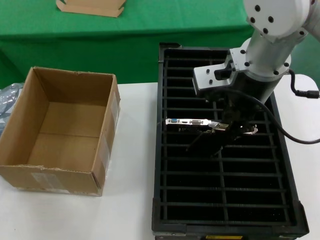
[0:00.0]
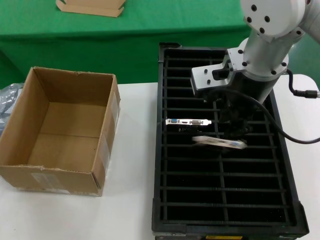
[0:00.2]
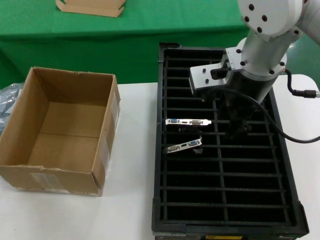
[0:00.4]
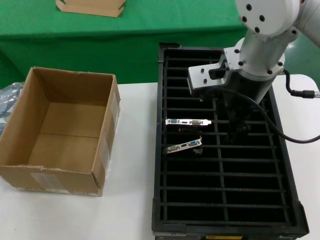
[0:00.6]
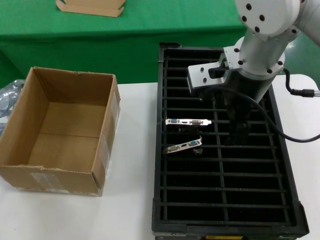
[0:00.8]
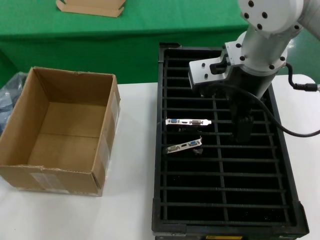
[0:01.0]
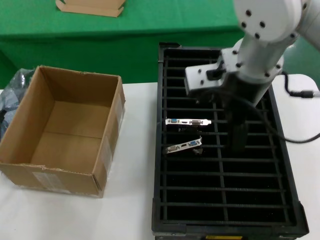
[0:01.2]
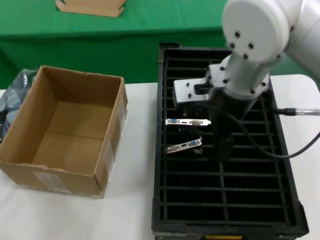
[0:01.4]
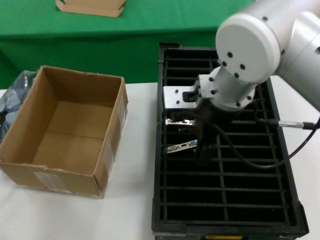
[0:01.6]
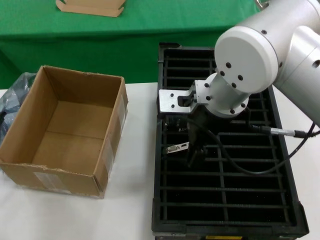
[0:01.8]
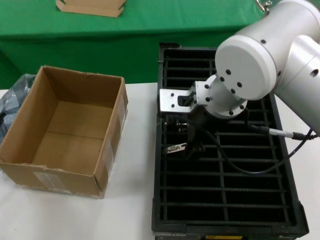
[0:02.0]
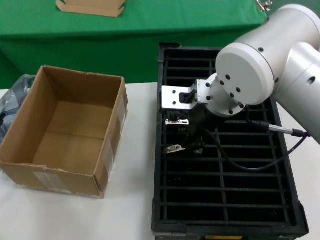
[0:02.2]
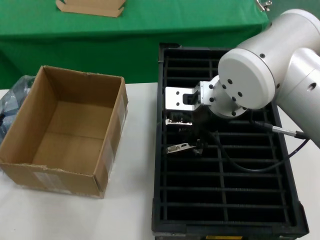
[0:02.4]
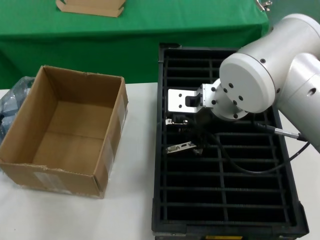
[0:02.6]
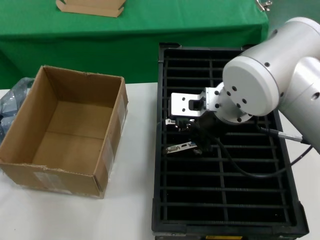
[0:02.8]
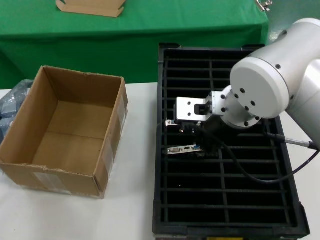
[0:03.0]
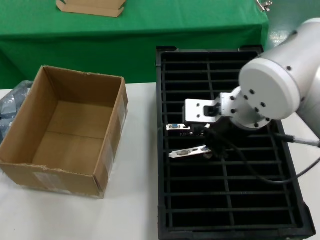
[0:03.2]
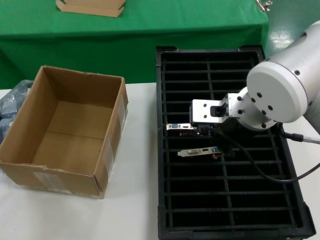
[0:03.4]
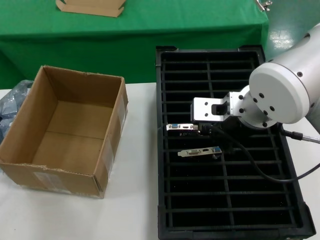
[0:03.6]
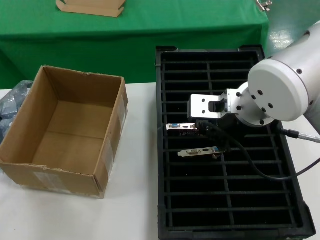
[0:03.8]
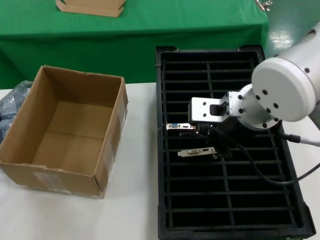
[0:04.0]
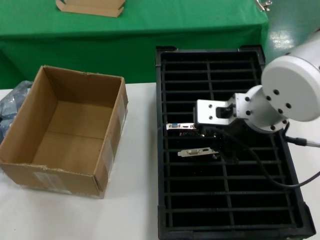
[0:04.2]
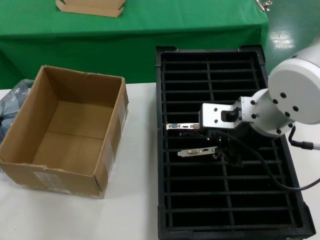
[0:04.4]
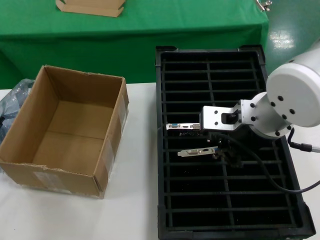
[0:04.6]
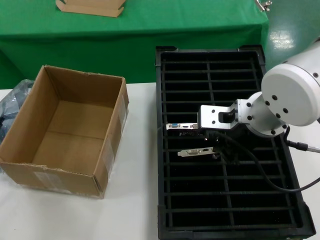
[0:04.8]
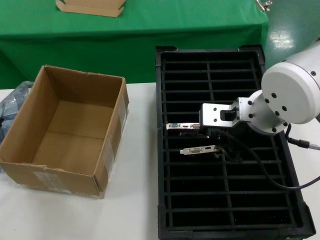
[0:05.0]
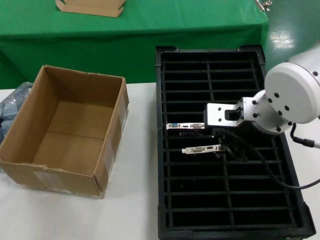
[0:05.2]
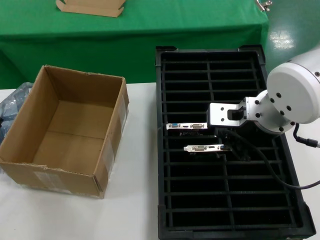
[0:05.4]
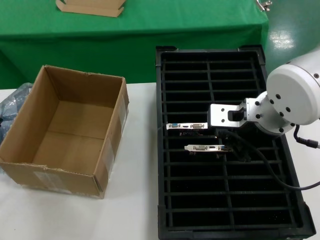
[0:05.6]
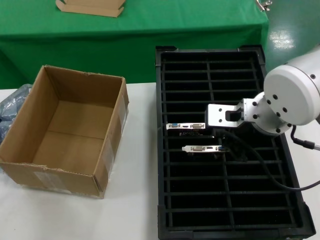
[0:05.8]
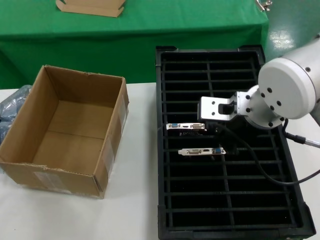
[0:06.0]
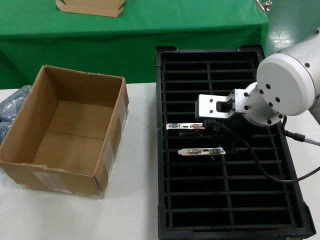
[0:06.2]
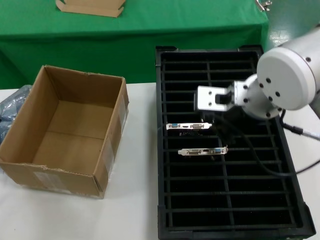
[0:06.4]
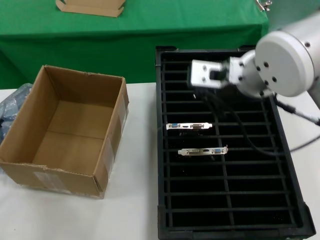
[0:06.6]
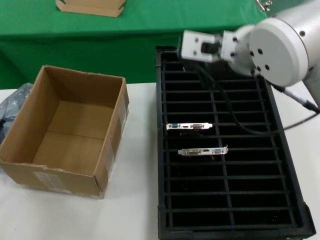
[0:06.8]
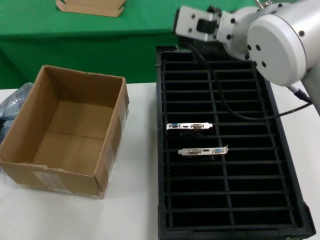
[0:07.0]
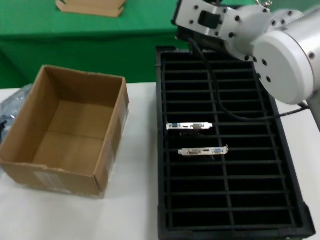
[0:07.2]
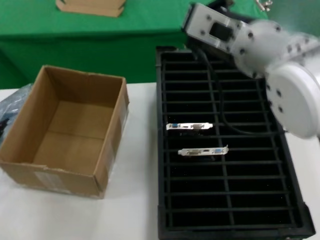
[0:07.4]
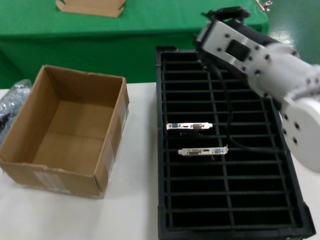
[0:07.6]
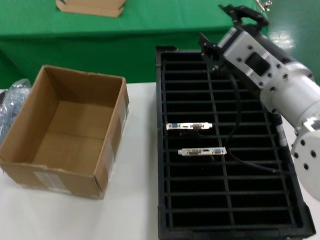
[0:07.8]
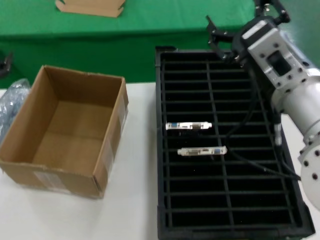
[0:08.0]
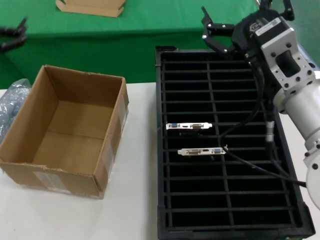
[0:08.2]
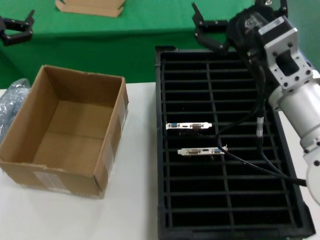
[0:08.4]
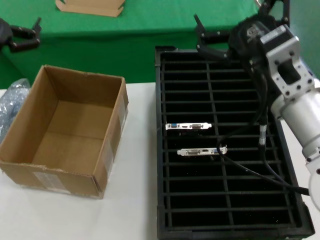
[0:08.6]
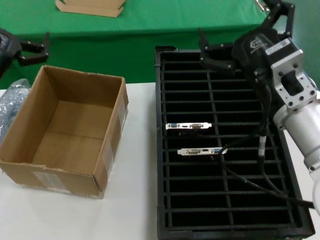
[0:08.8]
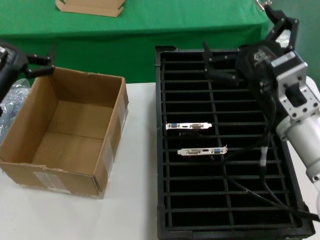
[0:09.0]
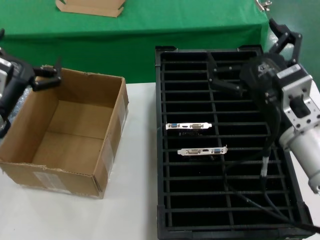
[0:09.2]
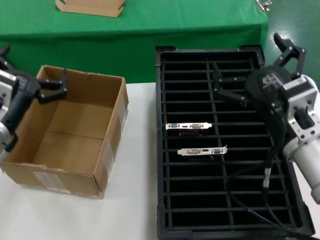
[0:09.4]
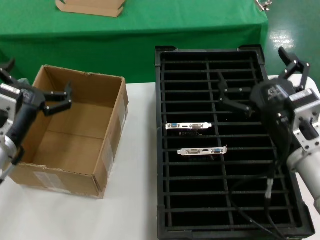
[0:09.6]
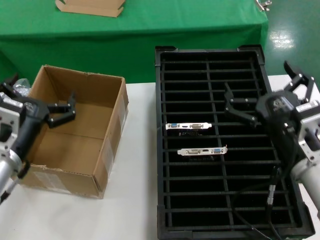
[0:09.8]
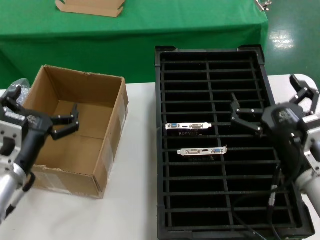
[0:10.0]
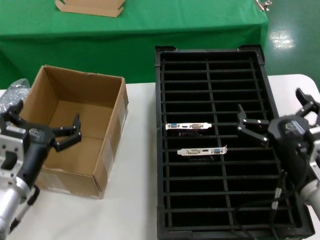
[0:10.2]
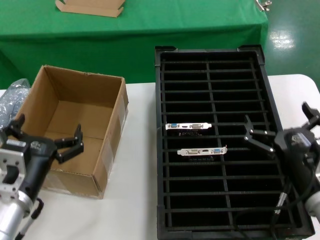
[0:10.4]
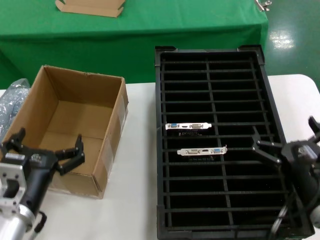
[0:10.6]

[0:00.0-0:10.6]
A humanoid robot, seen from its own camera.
Task of the whole recording: take out graphics card from box remove packaging put into black container.
Step, 0:00.0 to 0:03.6: Place the hard disk in the hard disk enclosure.
Step, 0:04.0 to 0:07.4: Place the down the bag.
0:00.0 to 0:01.6: The right hand ends up about 5 cm from where it was.
0:03.0 to 0:06.0: There are only small adjustments of the hands.
0:06.0 to 0:07.6: The right hand heads backward, covering approximately 5 cm.
0:07.6 to 0:09.0: The right hand moves downward and to the right, roughly 10 cm, while the left hand is displaced to the right and upward by some 15 cm.
0:09.0 to 0:10.6: The right hand travels downward and to the right by some 15 cm, while the left hand travels downward, backward and to the right by approximately 20 cm.
